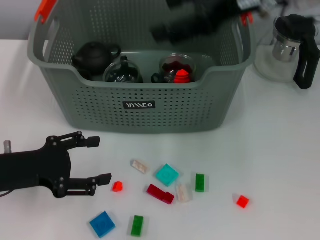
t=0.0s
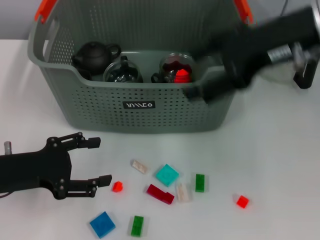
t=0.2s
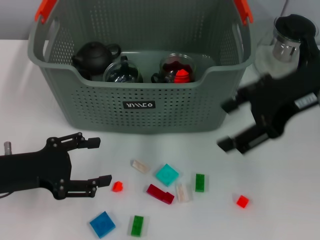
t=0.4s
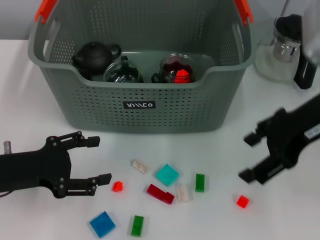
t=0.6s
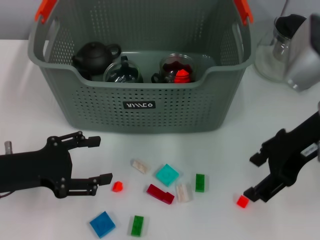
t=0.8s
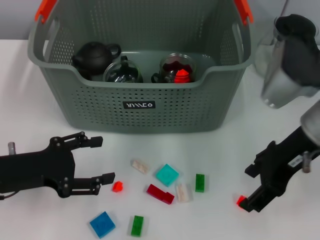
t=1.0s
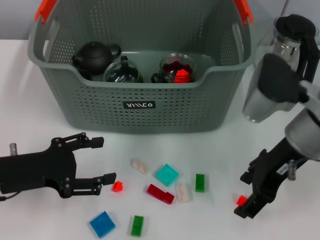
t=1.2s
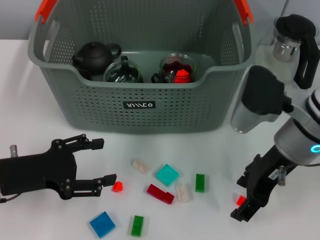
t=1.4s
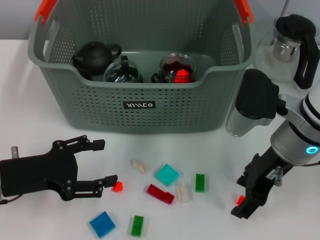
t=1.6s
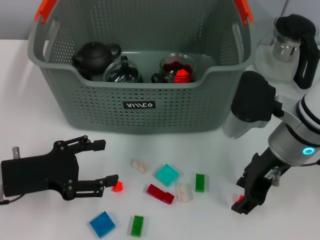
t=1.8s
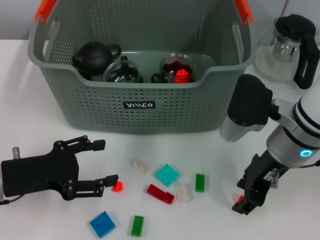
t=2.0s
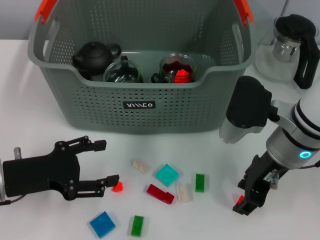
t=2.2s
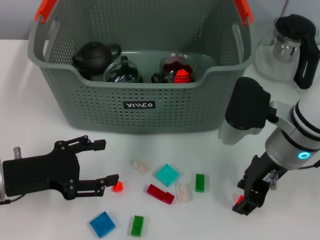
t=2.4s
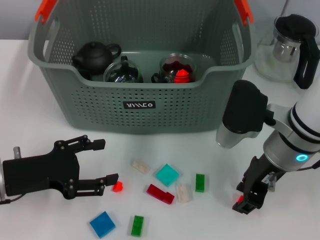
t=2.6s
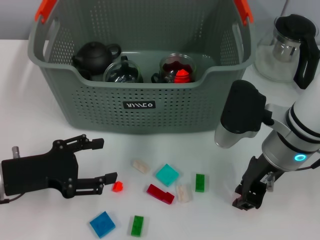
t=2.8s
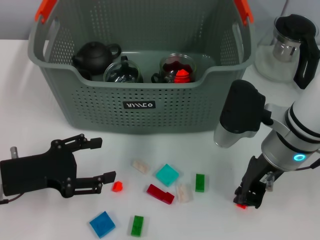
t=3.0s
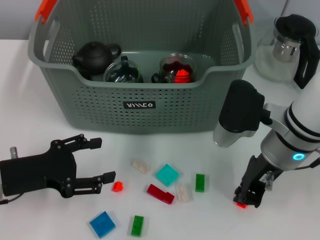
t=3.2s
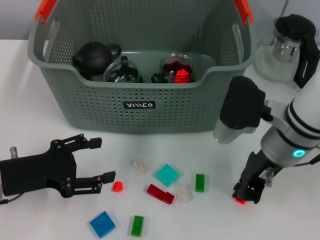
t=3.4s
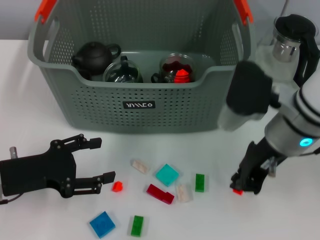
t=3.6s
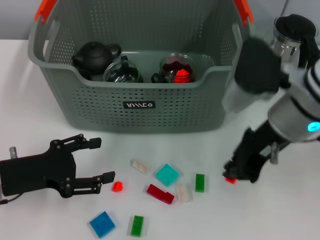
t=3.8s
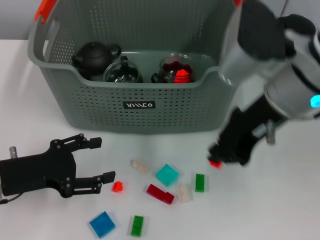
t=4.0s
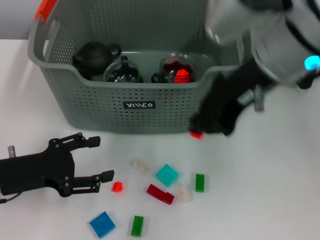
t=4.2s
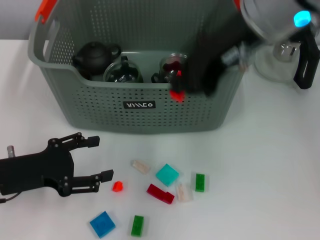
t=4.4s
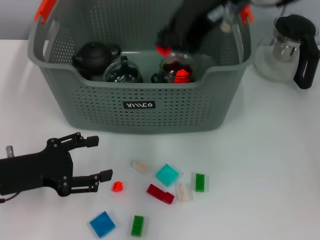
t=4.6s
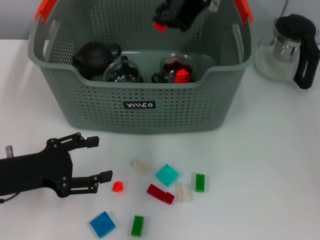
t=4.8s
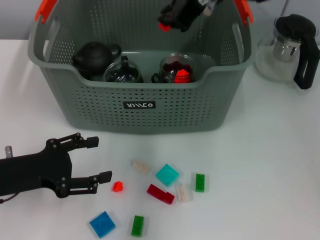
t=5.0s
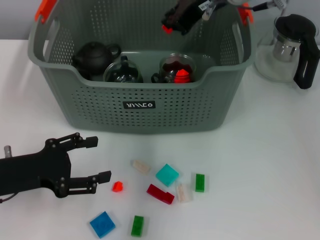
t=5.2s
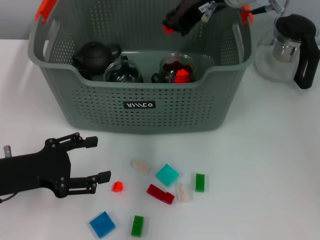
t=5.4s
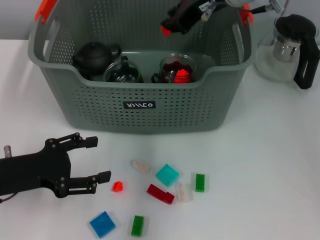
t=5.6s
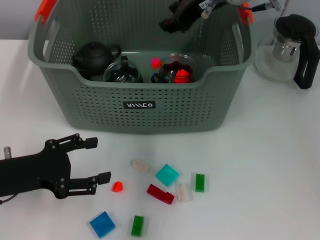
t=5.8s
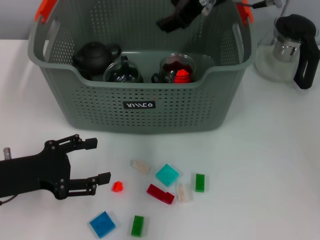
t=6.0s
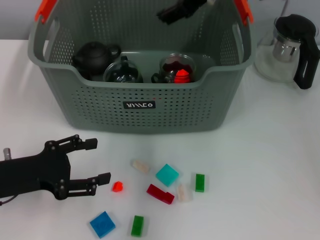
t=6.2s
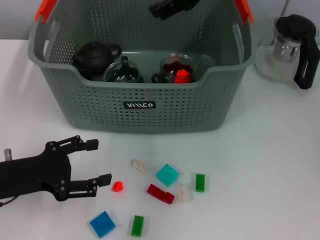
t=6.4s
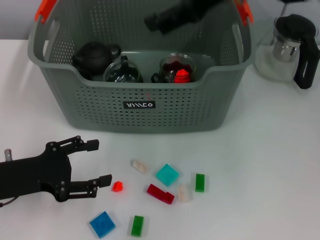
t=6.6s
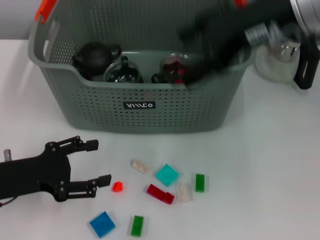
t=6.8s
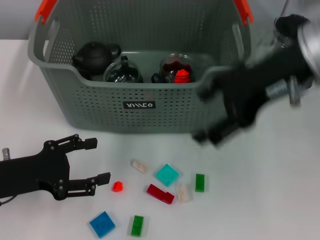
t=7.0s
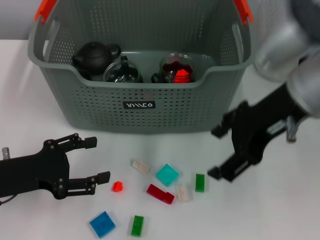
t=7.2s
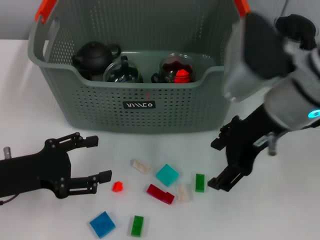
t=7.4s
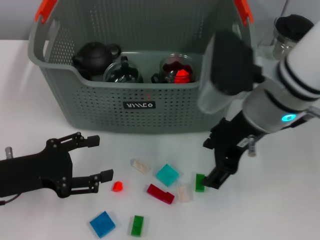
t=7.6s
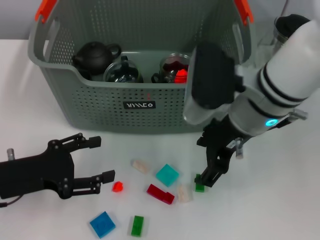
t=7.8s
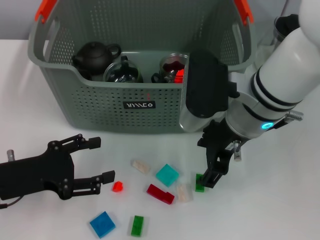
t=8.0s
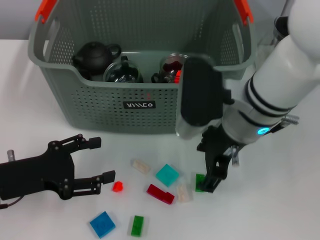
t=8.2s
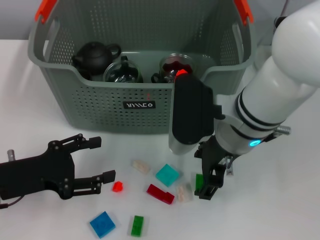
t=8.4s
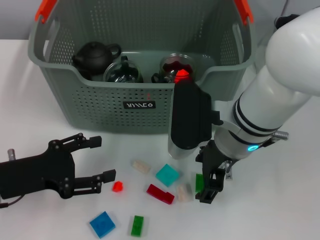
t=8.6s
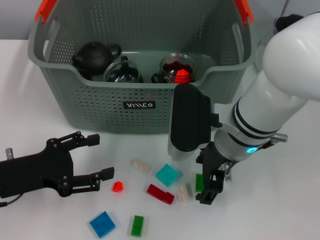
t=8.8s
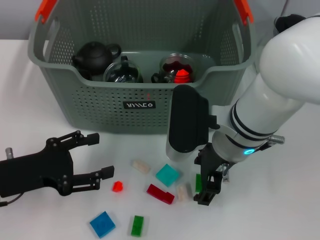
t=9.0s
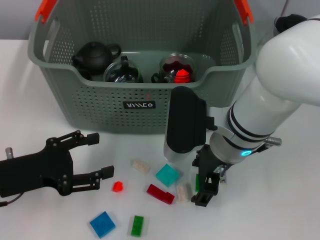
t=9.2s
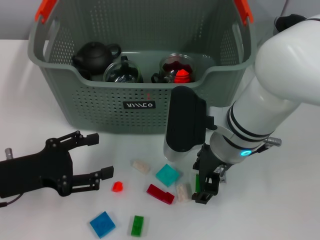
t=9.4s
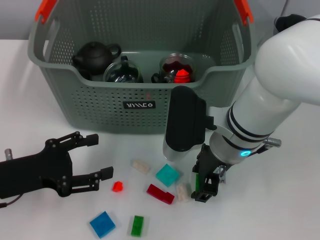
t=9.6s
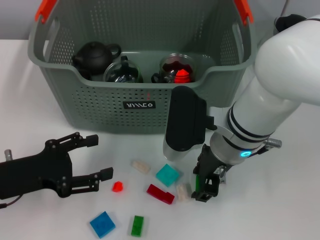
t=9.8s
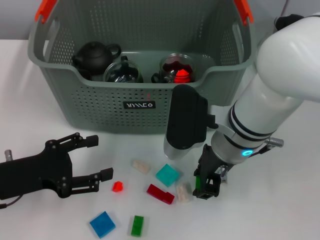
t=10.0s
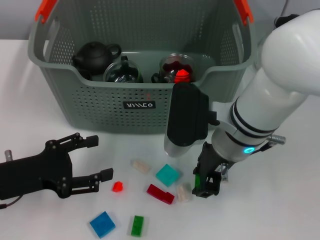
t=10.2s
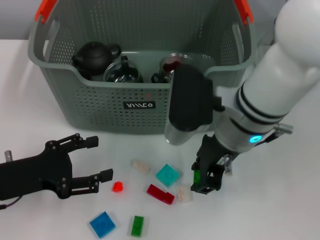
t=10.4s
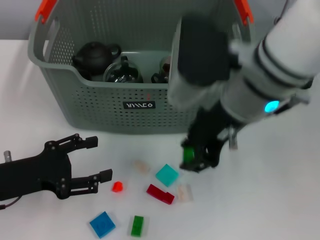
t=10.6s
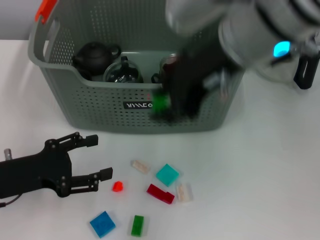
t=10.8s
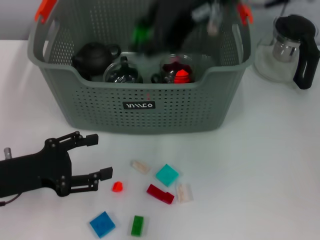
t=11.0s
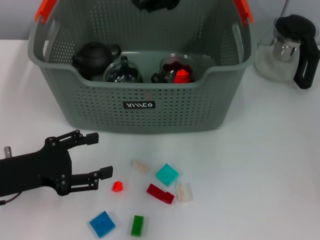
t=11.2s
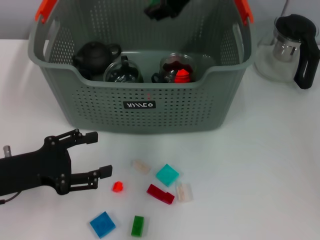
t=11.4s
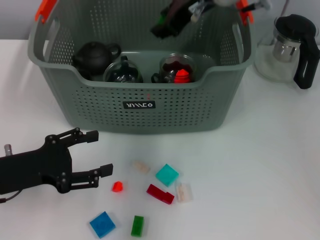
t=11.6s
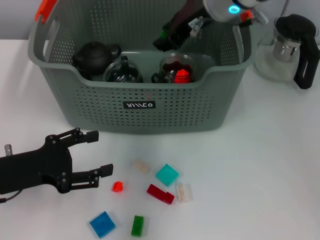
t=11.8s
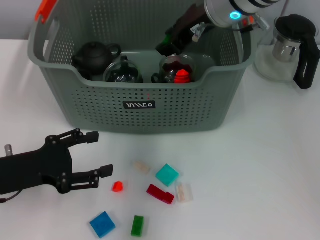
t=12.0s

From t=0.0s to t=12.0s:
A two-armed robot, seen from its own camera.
Task of the whole recording: pick up the teacup on the table and place it into the storage bin, pick up the block on the table and place it into the storage bin.
Step, from t=0.0s to t=3.0s: Grasp the orange block with right gripper.
Step, from t=3.2s to t=5.8s: Place the orange block in the storage box with right gripper.
Step, from t=6.0s to t=9.8s: Grasp the green block with right gripper.
From t=0.0s to t=1.6s: The right gripper heads downward, covering about 15 cm.
From t=1.6s to t=3.0s: The right gripper closes up.
From t=3.0s to t=4.4s: The right gripper shifts roughly 20 cm upward.
From t=4.4s to t=6.0s: The right gripper moves forward, about 10 cm, and opens.
From t=6.0s to t=7.6s: The right gripper goes roughly 15 cm backward and downward, and opens up.
From t=7.6s to t=9.0s: The right gripper moves downward, some 5 cm.
From t=9.0s to t=10.4s: The right gripper closes up.
From t=10.4s to t=12.0s: The right gripper moves forward and upward, about 15 cm.

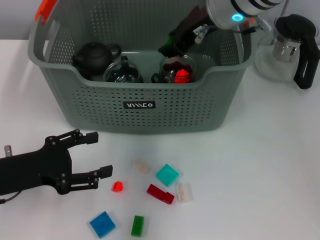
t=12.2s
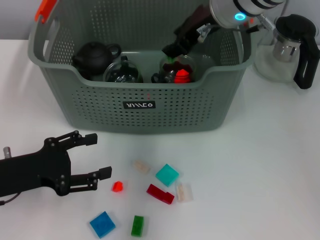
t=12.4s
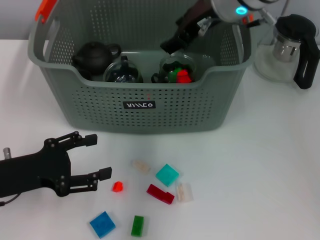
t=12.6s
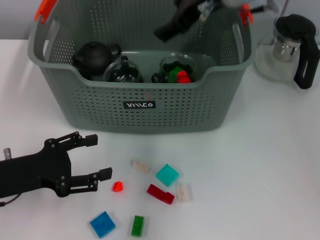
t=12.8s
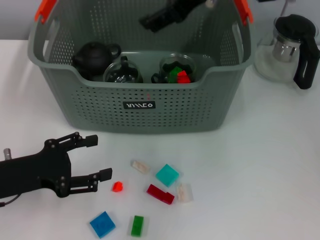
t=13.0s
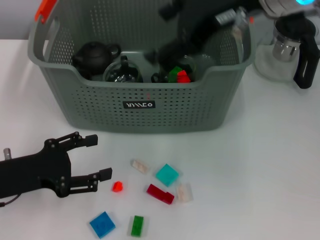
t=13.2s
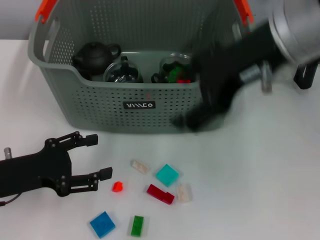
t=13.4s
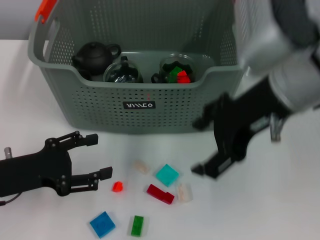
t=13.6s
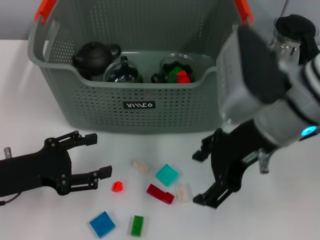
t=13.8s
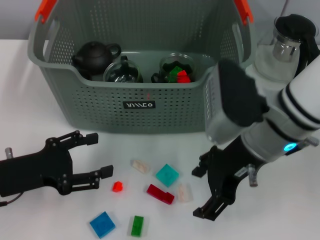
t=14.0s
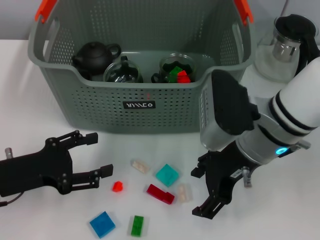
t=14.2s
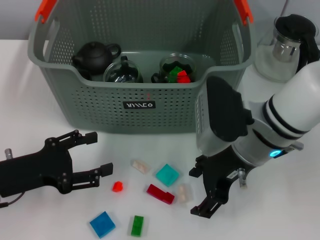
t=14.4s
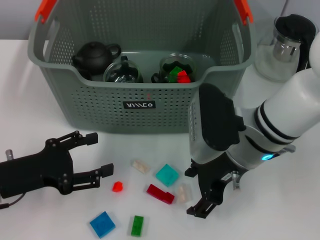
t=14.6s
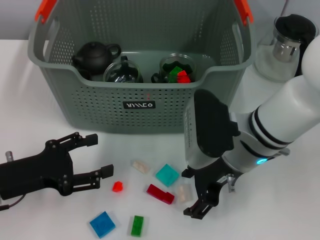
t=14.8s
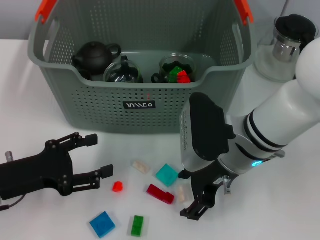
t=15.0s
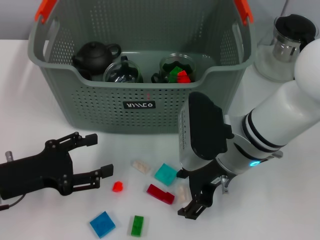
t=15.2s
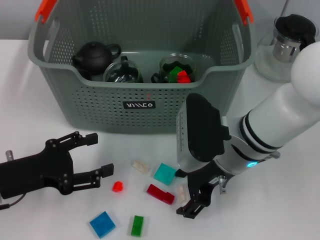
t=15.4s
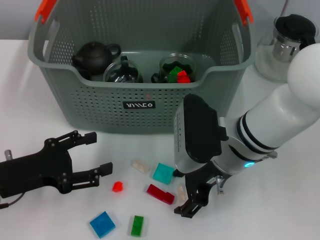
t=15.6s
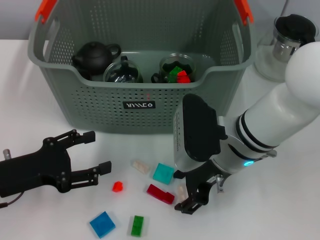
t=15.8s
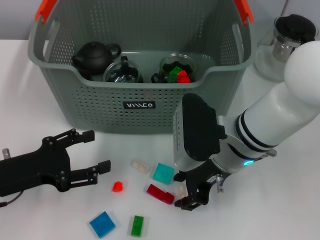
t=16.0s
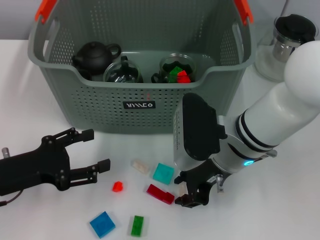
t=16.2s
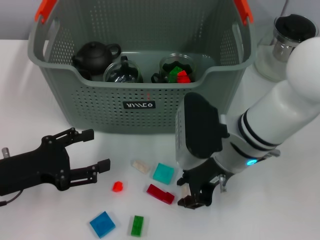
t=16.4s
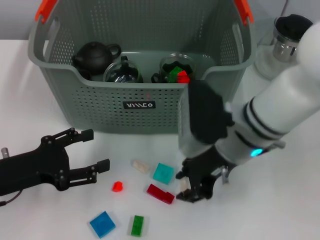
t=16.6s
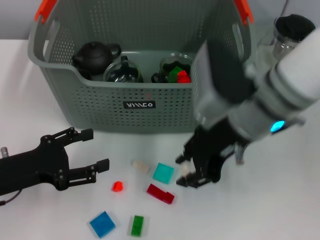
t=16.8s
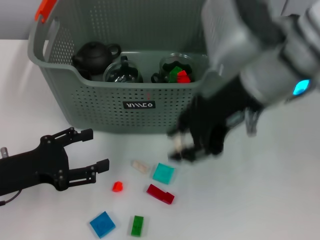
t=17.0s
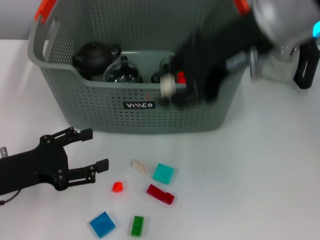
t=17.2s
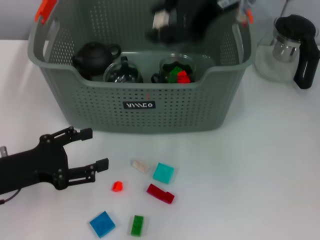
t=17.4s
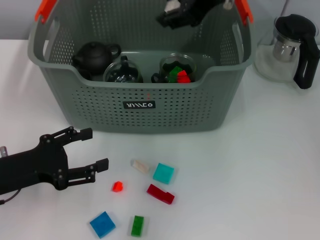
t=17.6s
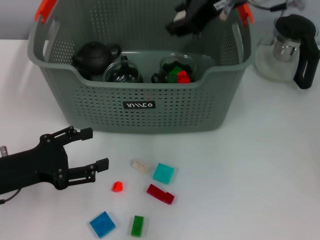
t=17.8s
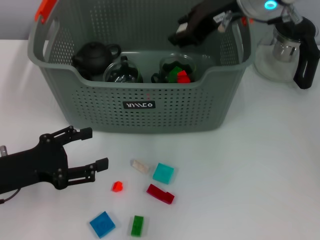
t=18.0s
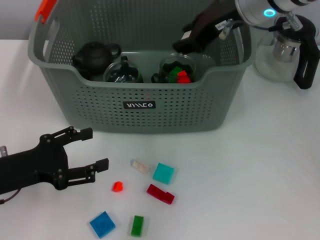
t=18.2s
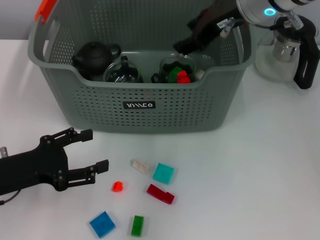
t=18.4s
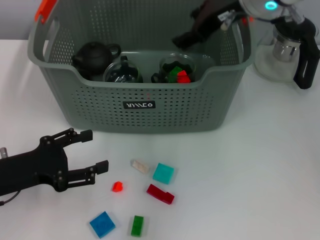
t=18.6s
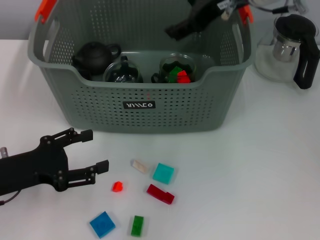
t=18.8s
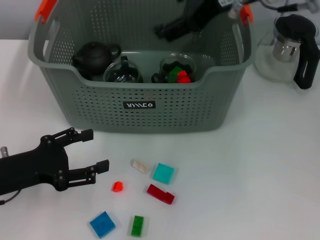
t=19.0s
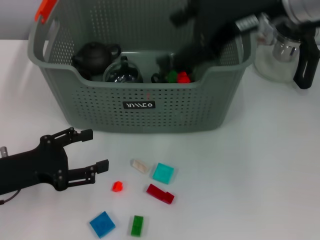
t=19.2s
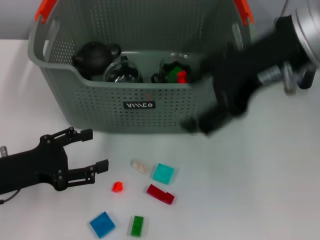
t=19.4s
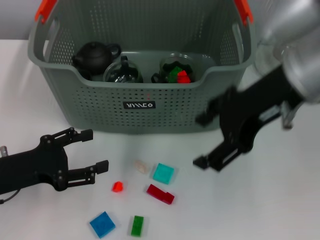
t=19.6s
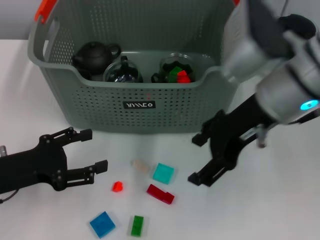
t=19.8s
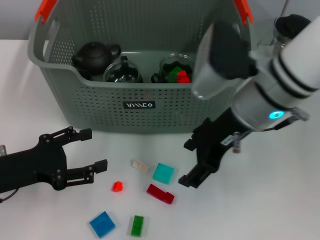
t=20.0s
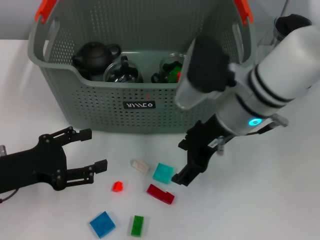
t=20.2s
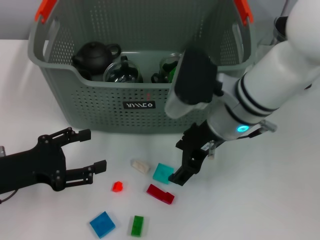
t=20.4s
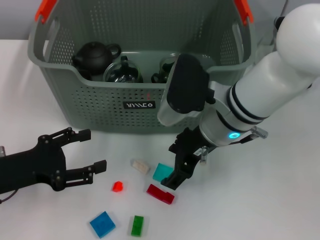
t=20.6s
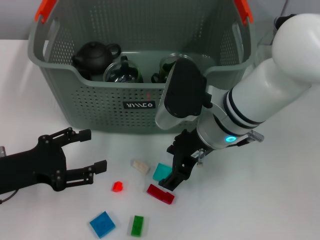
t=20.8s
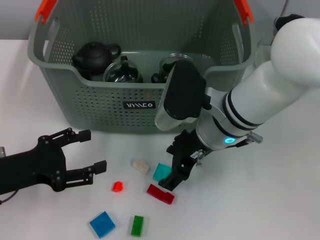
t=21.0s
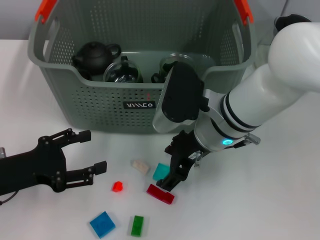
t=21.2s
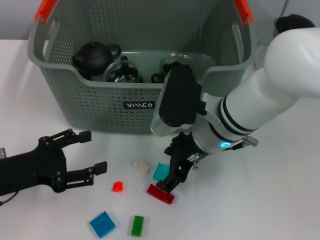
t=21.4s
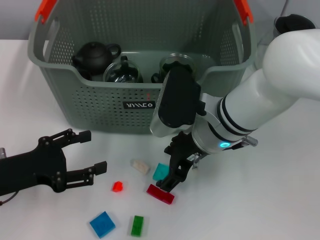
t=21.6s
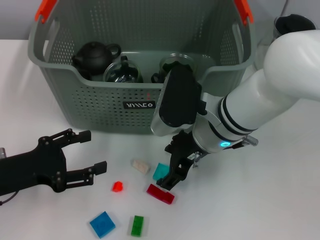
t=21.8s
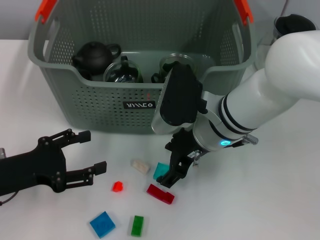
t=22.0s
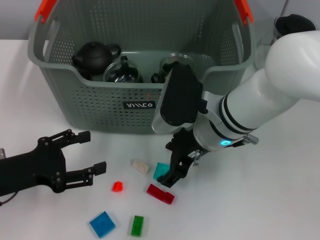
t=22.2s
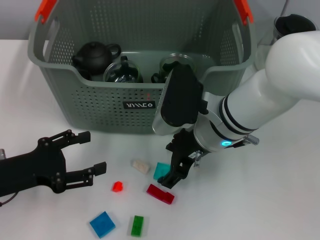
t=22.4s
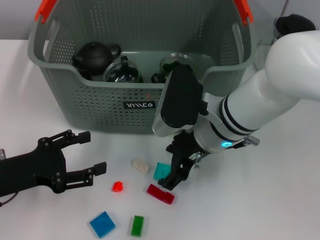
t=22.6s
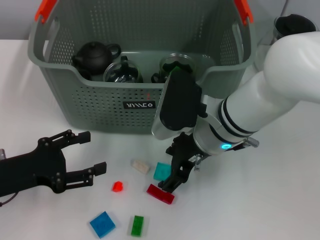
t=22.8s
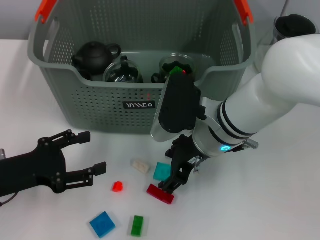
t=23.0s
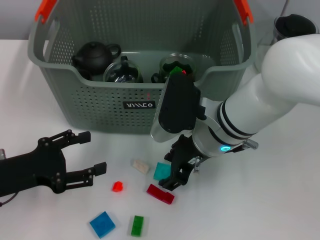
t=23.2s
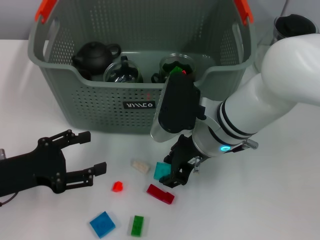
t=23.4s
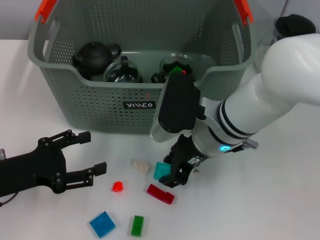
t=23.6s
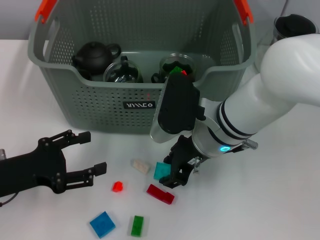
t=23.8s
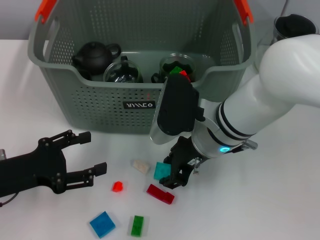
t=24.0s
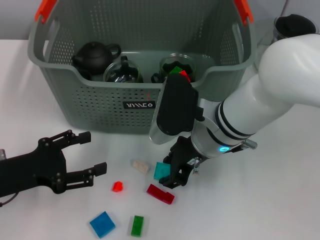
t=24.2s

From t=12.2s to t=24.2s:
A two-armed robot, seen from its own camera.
Task of the whole recording: pick up the teacup on the table and place it into the storage bin, pick up the block on the table and place it into the storage bin.
Step, from t=12.6s to t=16.0s: Grasp the white block with right gripper.
Step, from t=16.4s to t=18.4s: Place the white block in the storage box with right gripper.
From t=12.2s to t=13.8s: The right gripper is displaced backward by about 15 cm, and opens its fingers.
From t=13.8s to t=15.2s: The right gripper heads downward, covering some 10 cm.
From t=15.2s to t=16.6s: The right gripper closes.
From t=16.6s to t=18.2s: The right gripper goes roughly 15 cm upward and forward.
From t=18.2s to t=19.8s: The right gripper goes roughly 10 cm backward, and opens.
From t=19.8s to t=21.2s: The right gripper is displaced downward and to the left by some 10 cm.
From t=21.2s to t=22.6s: Neither gripper changes place.
From t=22.6s to t=24.2s: The right gripper closes its fingers.
